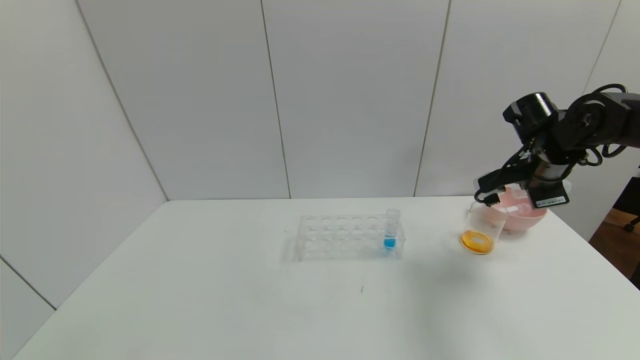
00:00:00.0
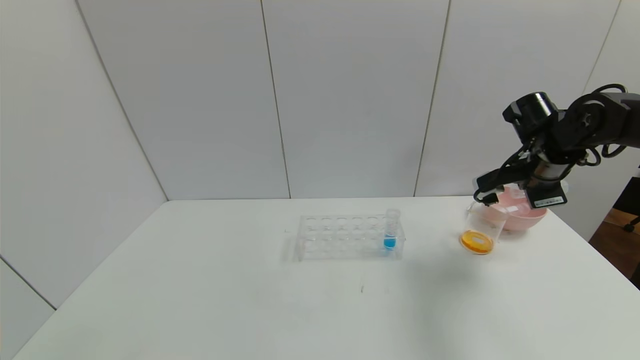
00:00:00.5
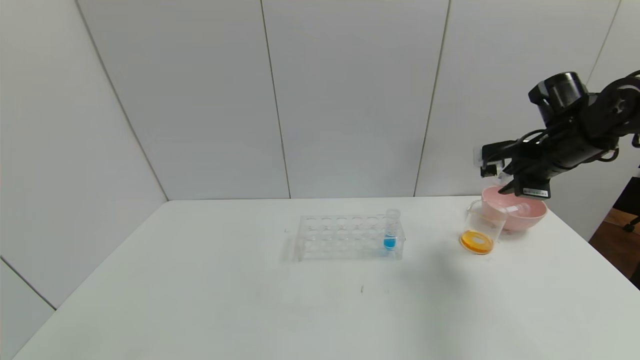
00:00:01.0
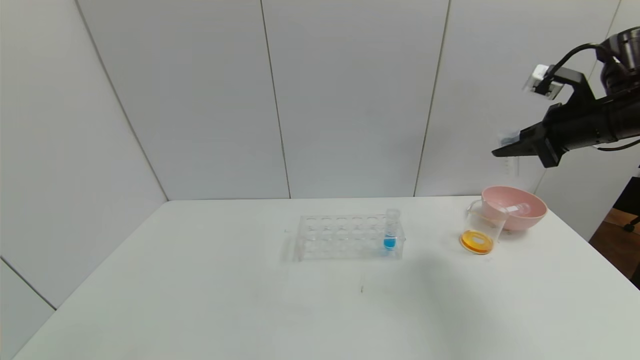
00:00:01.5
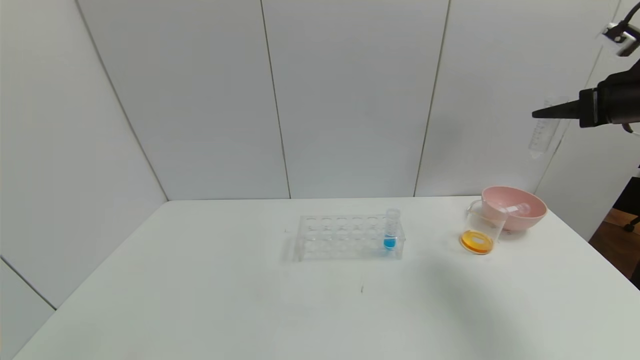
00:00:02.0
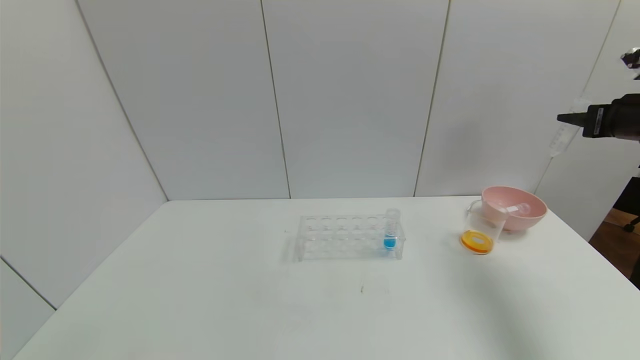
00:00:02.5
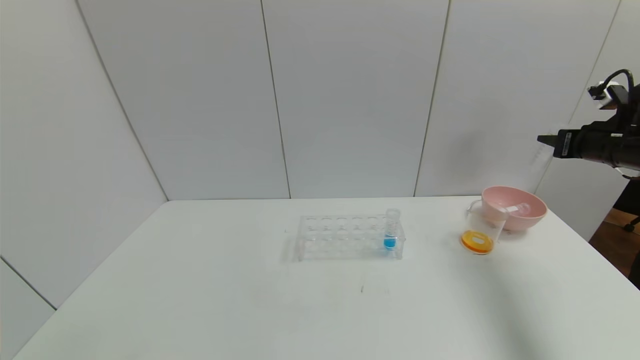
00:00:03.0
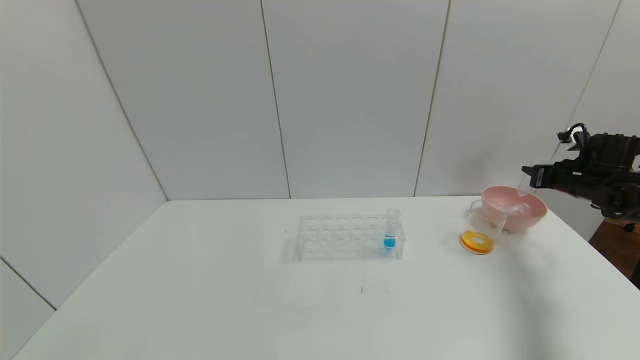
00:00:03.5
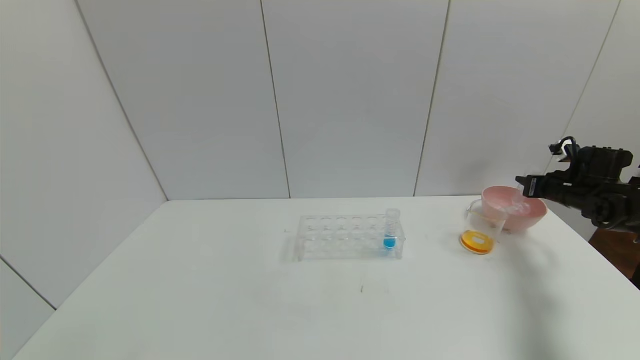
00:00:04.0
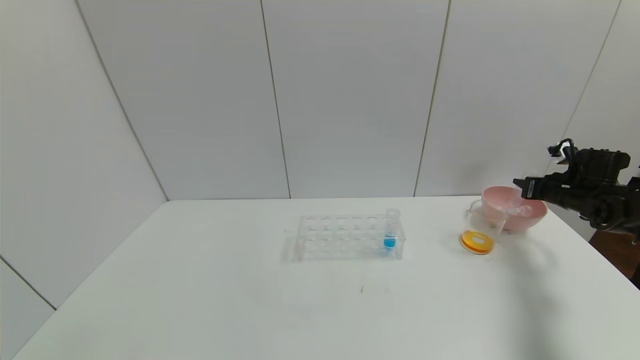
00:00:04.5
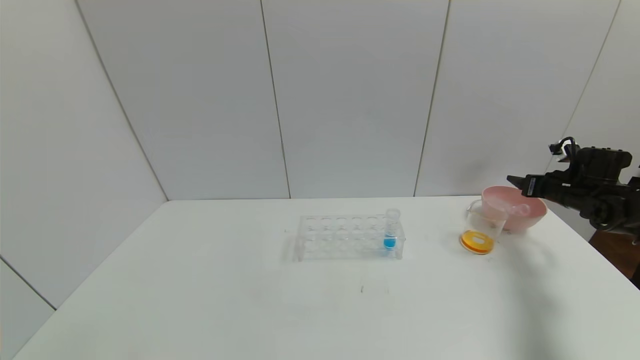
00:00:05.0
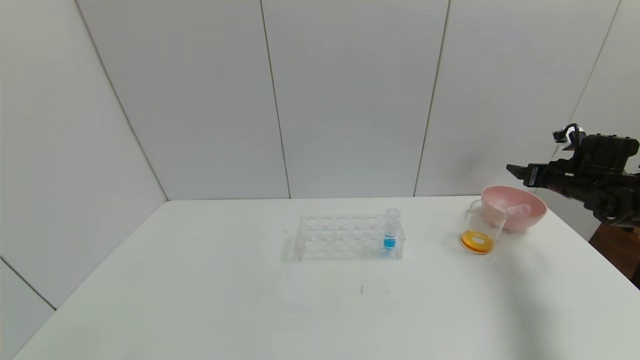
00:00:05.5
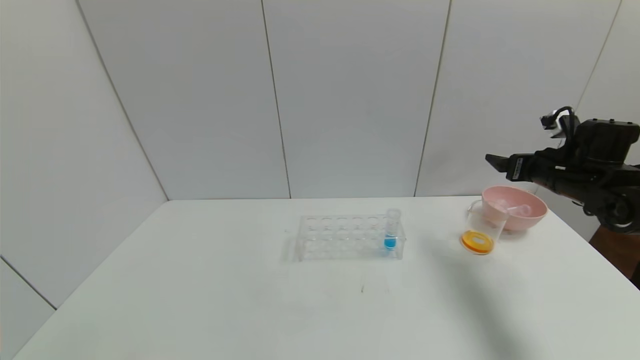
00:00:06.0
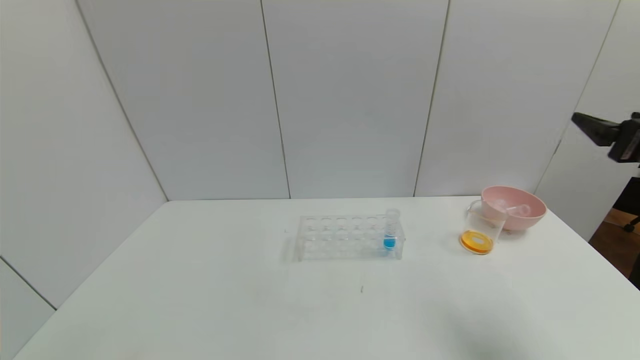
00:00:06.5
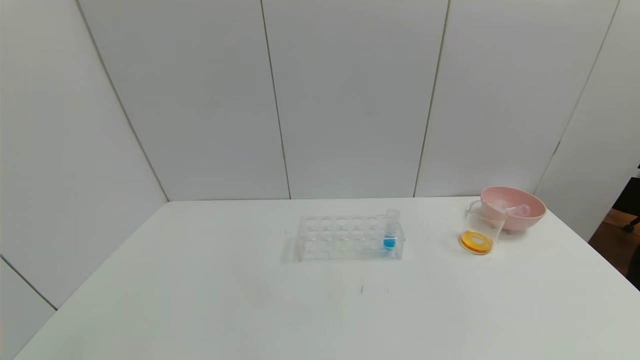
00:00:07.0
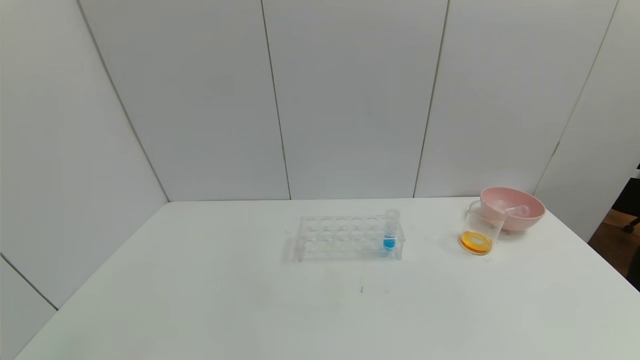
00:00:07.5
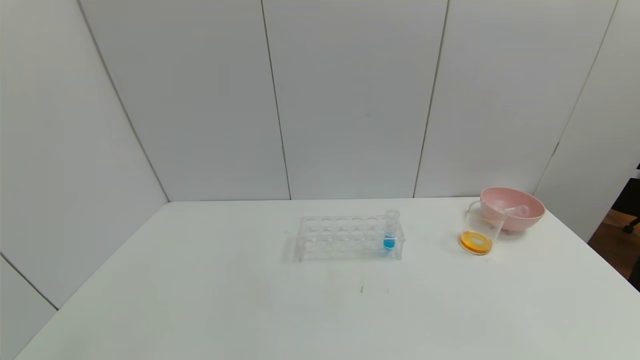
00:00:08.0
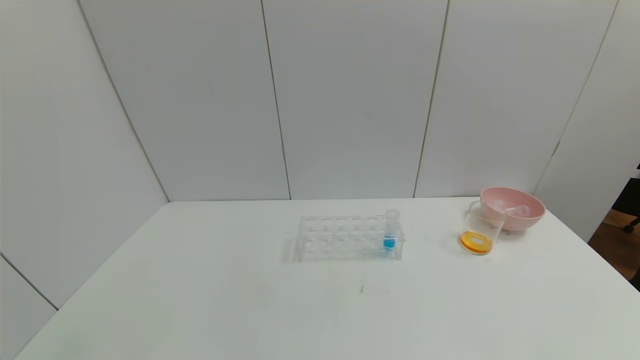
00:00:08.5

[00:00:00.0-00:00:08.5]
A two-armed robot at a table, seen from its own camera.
Task of the whole recording: pick up the test tube with yellow pigment and the test tube with red pigment by grippers and pour them into the beaker.
Step, 00:00:00.0 to 00:00:03.0: Pour the yellow reagent into the graduated cylinder with right gripper.
Step, 00:00:03.5 to 00:00:06.5: Place the test tube into the bowl with right gripper.
00:00:00.0 to 00:00:02.0: The right gripper is displaced upward, to the right and backward by some 15 cm.
00:00:02.0 to 00:00:04.0: The right gripper goes roughly 25 cm downward and forward.
00:00:04.0 to 00:00:06.5: The right gripper moves backward, upward and to the left, some 30 cm, and opens up.
00:00:06.5 to 00:00:08.5: The right gripper shifts some 35 cm backward and downward.
